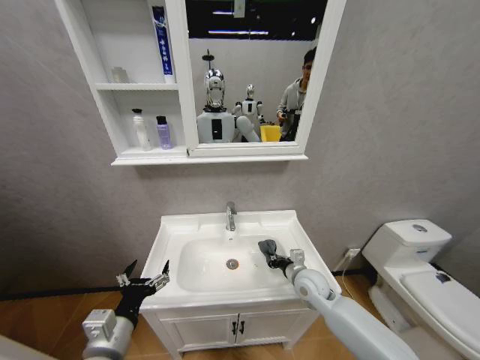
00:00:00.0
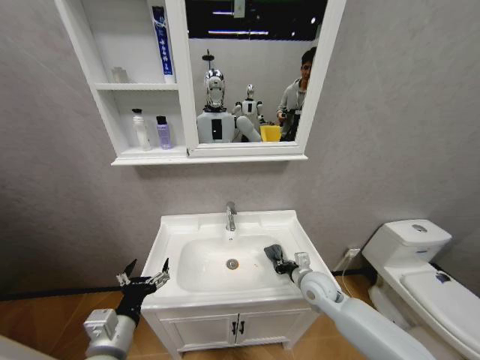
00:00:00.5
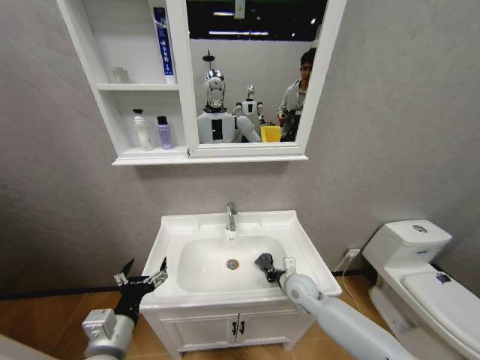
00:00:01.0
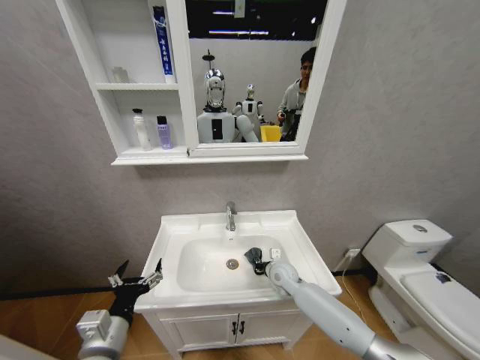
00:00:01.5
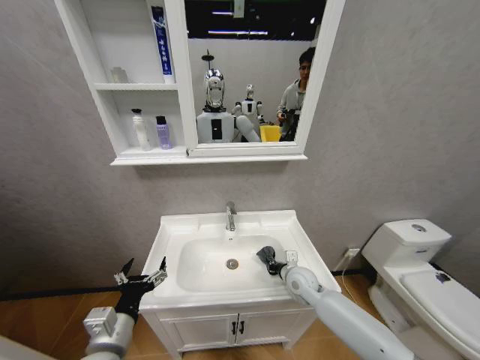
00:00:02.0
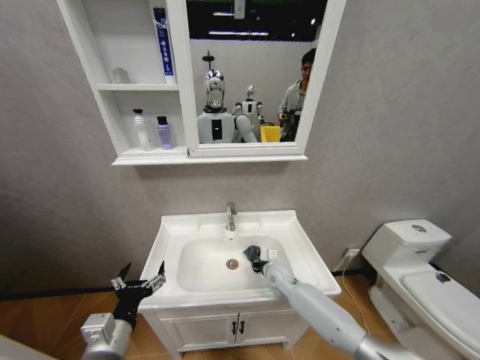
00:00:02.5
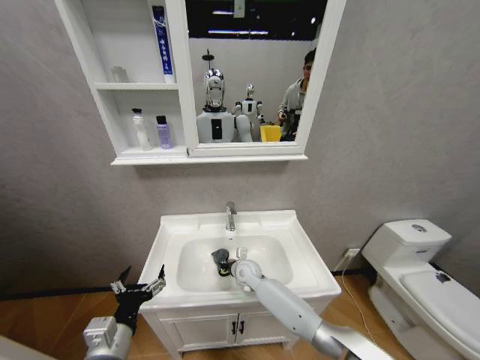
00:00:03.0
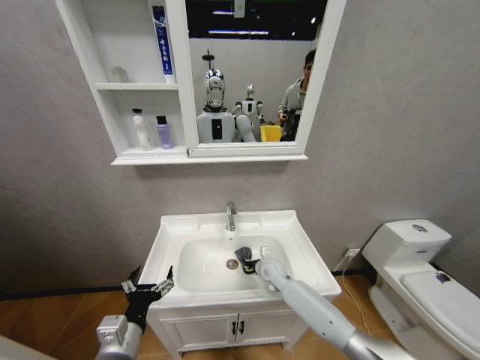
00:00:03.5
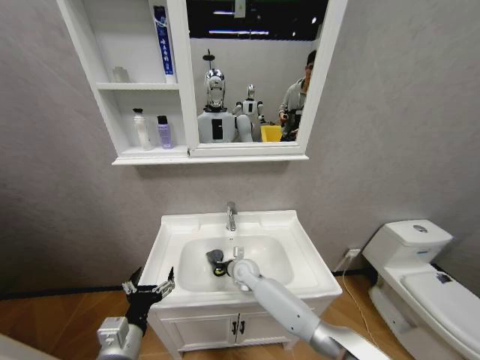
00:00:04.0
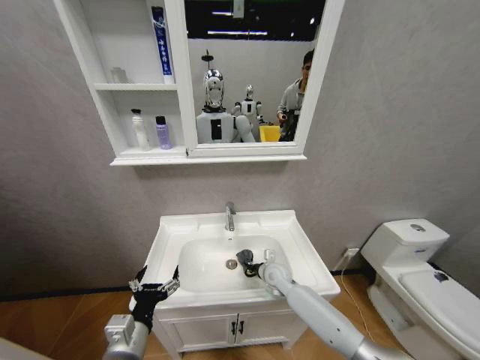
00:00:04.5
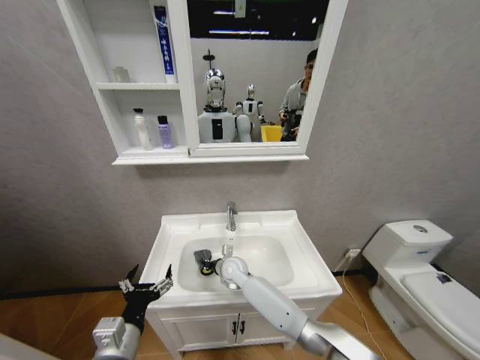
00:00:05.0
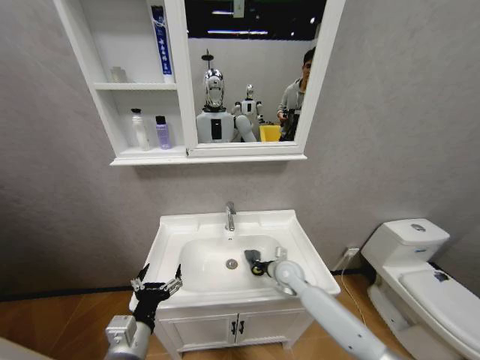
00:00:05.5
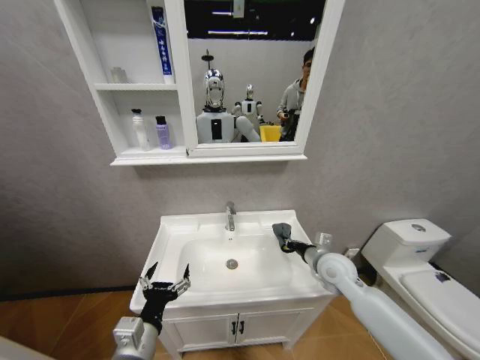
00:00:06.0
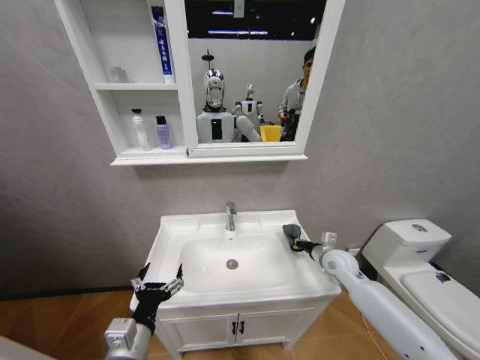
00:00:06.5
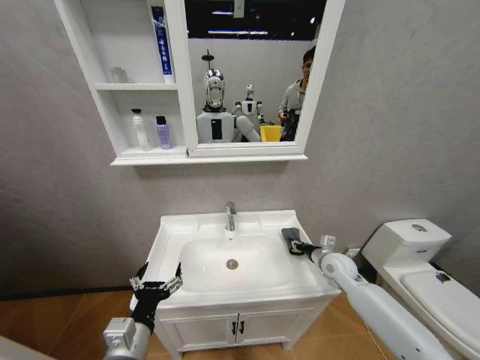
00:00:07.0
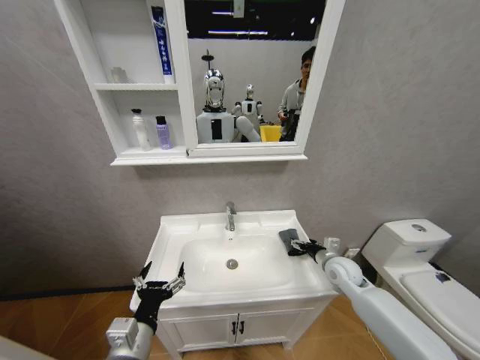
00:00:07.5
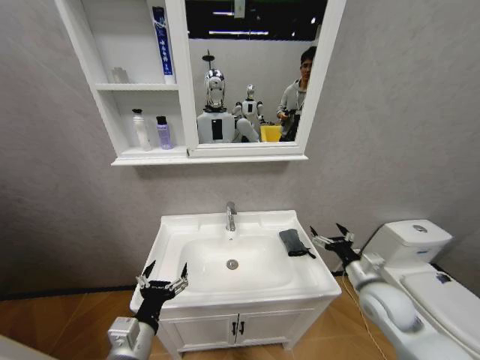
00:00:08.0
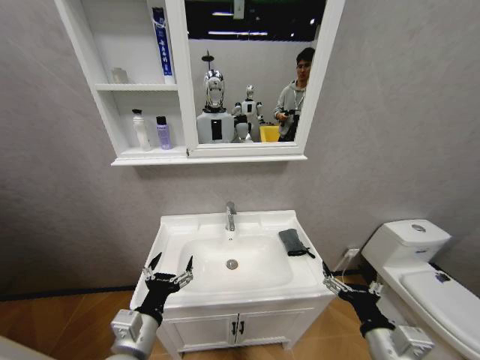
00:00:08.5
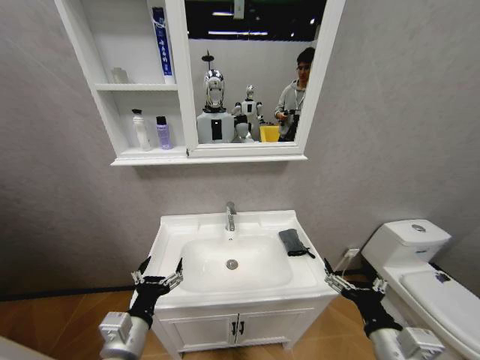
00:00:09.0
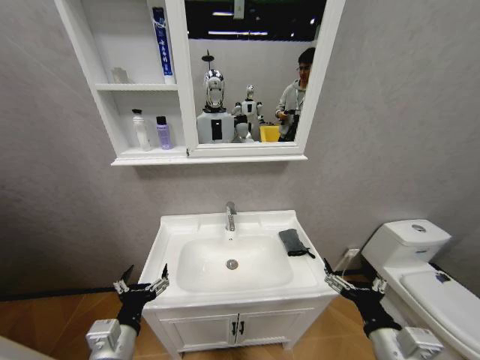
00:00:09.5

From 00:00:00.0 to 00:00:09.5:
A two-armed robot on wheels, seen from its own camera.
Task of the whole recording: Move facial cleanser and shampoo from washbasin to cabinet, then wipe washbasin with towel.
From 00:00:02.0 to 00:00:04.0: The right gripper moves left and right over some 20 cm, changing direction 2 times.
From 00:00:04.0 to 00:00:05.5: The right gripper goes left and right, about 20 cm each way, reversing 2 times.
From 00:00:05.5 to 00:00:07.5: The right gripper goes approximately 15 cm to the right, and opens up.
From 00:00:07.5 to 00:00:09.5: The right gripper is displaced backward by roughly 25 cm.

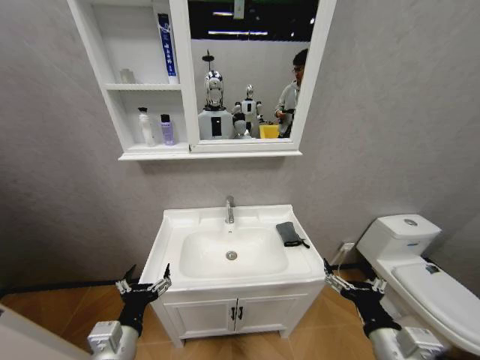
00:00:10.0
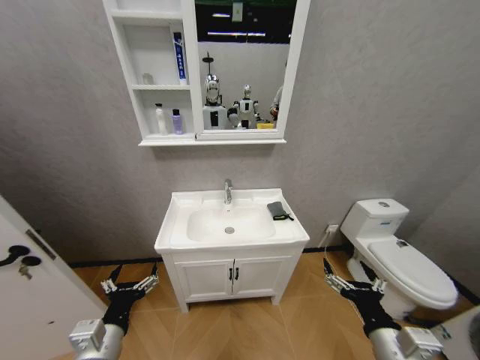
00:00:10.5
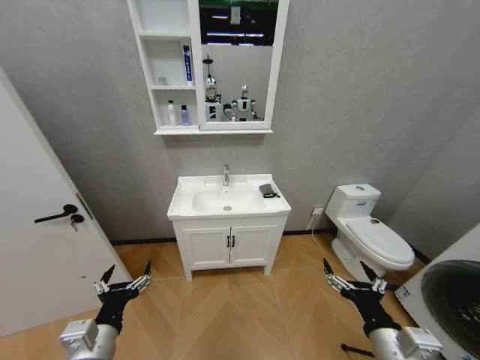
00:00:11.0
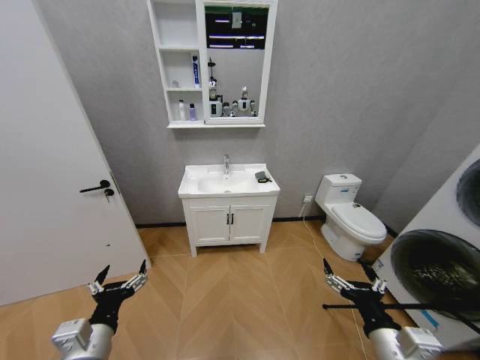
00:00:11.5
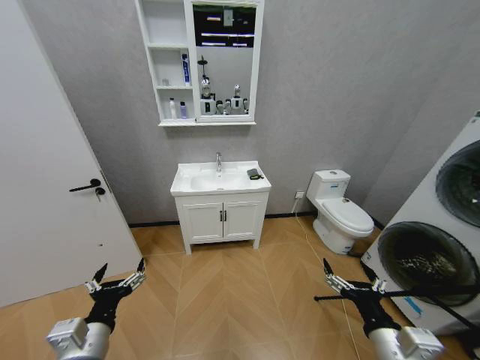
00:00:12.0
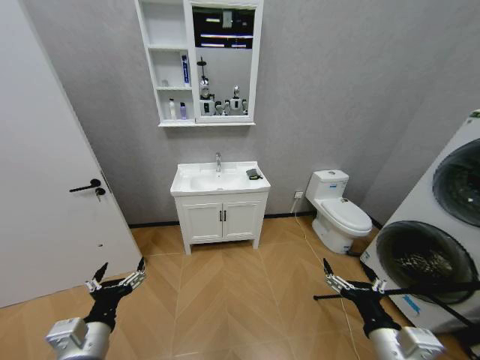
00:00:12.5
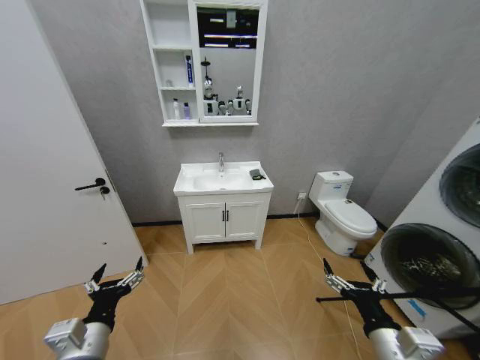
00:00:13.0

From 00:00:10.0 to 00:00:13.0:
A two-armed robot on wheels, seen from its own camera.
Task of the whole recording: Move facial cleanser and shampoo from washbasin to cabinet, then wipe washbasin with towel.
From 00:00:11.5 to 00:00:13.0: Both grippers stay put.

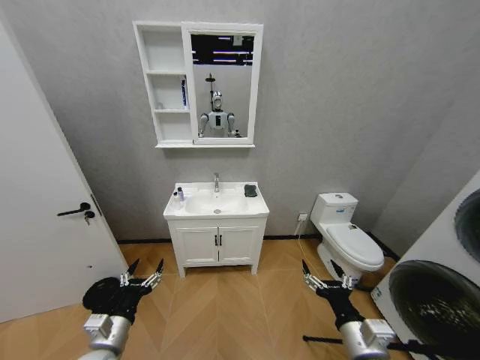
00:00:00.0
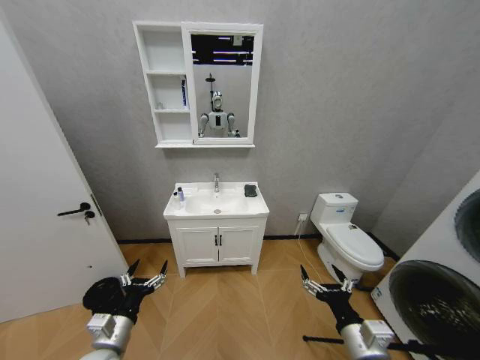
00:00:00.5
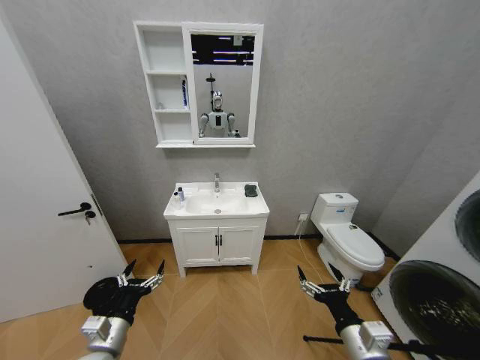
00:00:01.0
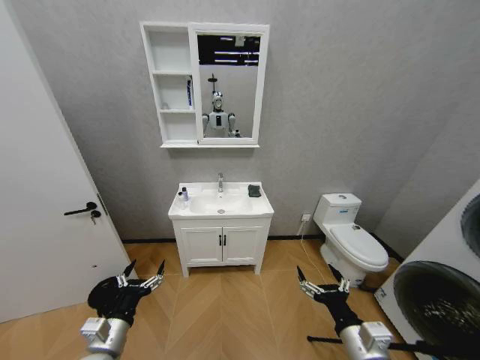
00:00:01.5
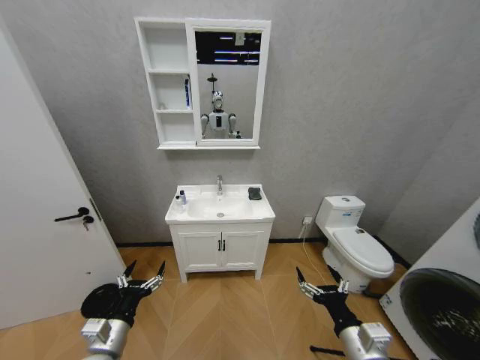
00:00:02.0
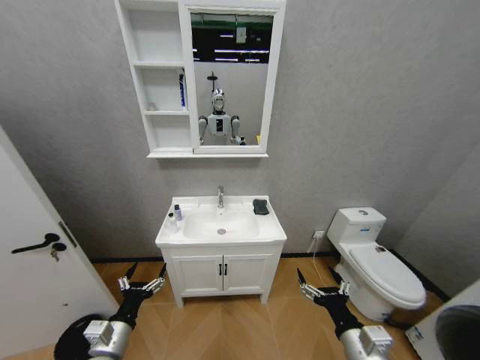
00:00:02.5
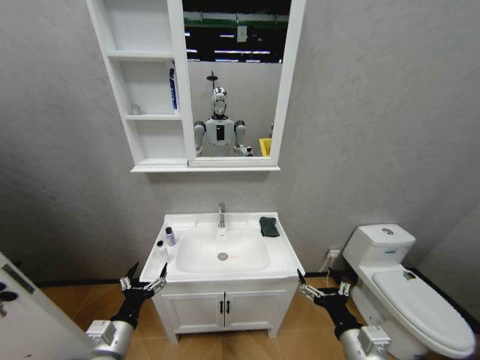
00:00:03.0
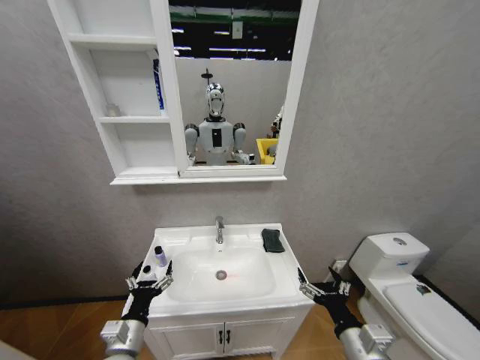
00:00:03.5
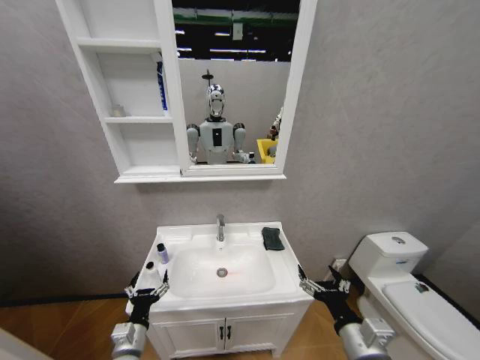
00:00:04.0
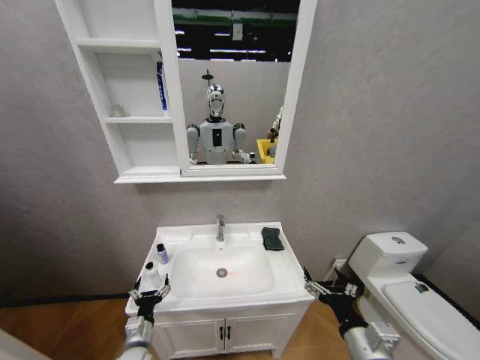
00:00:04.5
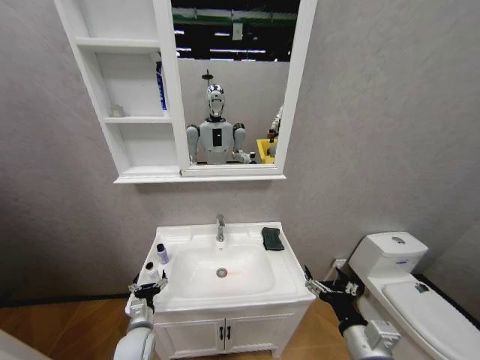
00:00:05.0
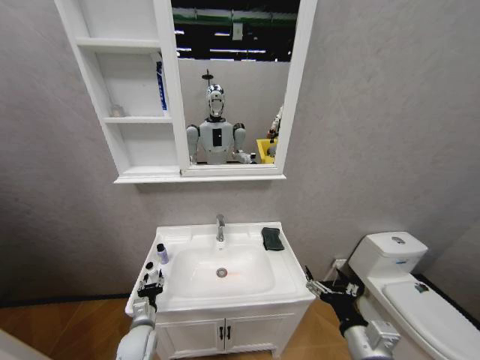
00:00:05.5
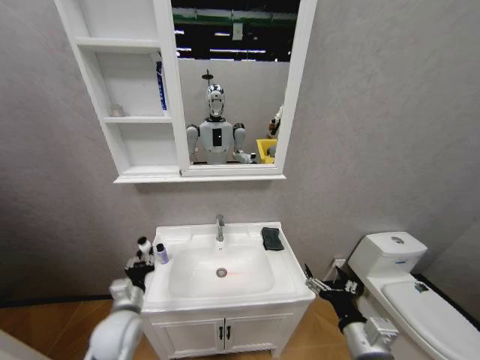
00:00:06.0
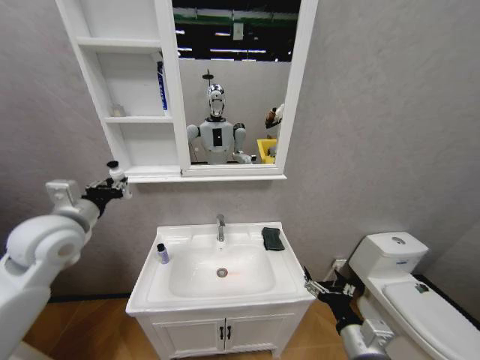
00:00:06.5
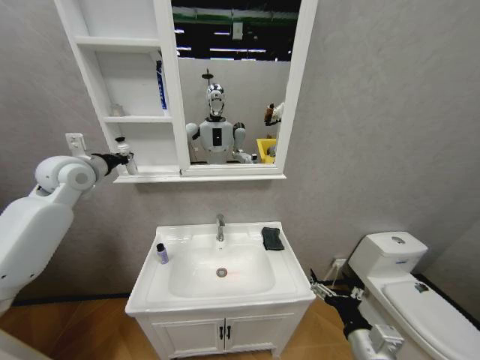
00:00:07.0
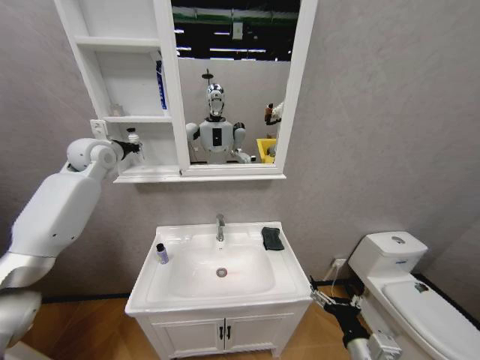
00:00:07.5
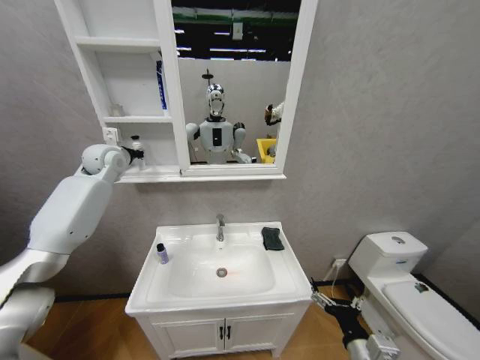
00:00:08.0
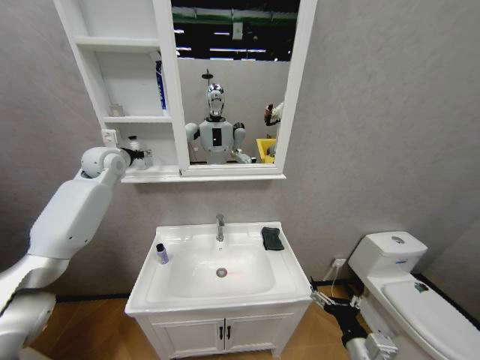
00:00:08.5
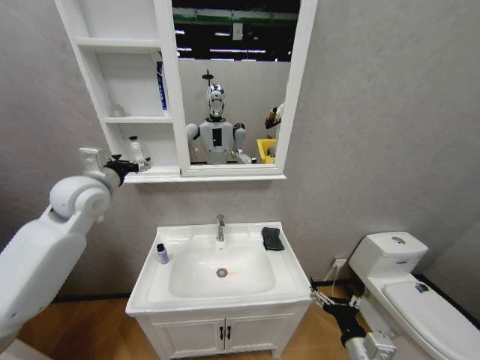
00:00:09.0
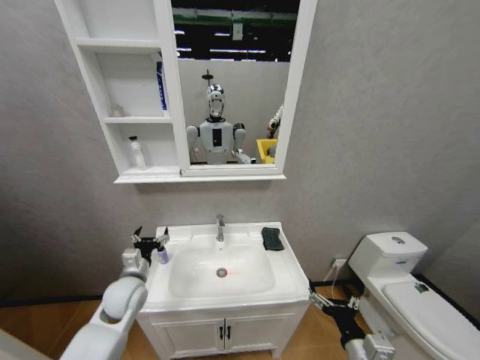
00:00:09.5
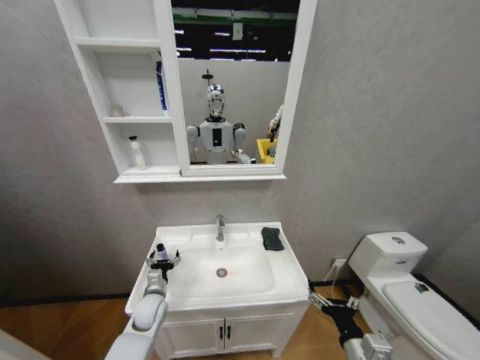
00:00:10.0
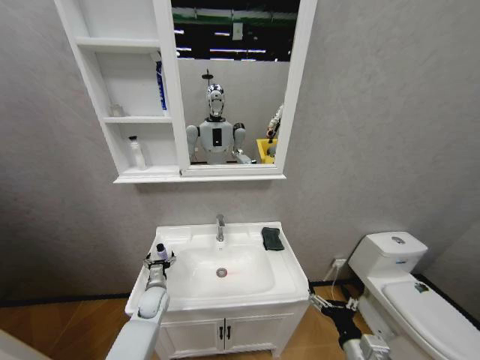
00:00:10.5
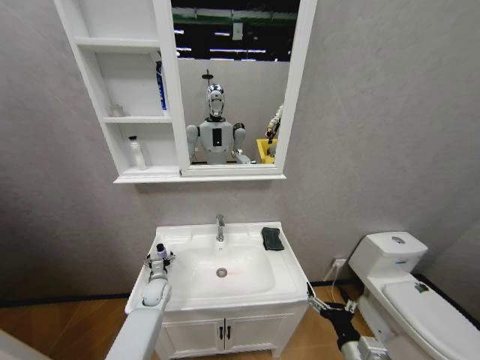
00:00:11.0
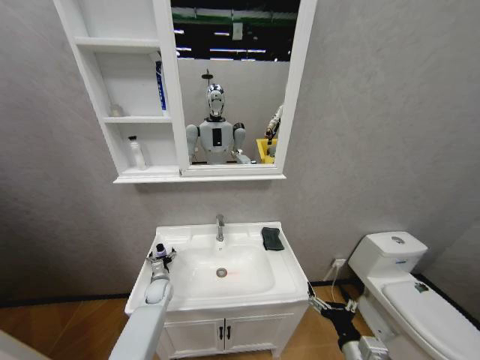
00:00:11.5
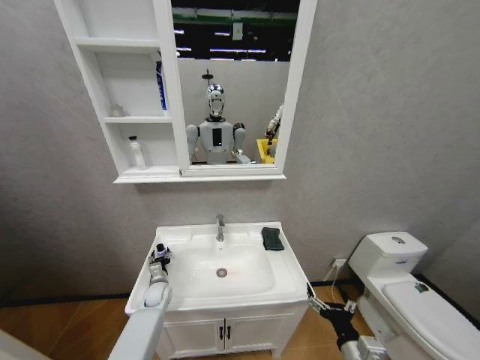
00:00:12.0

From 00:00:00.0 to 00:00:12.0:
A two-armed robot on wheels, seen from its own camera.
Task of the whole recording: Move facial cleanser and shampoo from washbasin to cabinet, then wipe washbasin with towel.
From 00:00:02.0 to 00:00:04.0: The left gripper is displaced downward by some 5 cm.
From 00:00:04.0 to 00:00:06.0: The left gripper is displaced upward and forward by some 10 cm, and closes up.
From 00:00:06.0 to 00:00:08.0: The left gripper is displaced upward and forward by approximately 40 cm.
From 00:00:08.0 to 00:00:10.0: The left gripper is displaced downward by some 40 cm, and opens up.
From 00:00:10.0 to 00:00:12.0: The left gripper moves forward and downward, approximately 10 cm, and closes up.

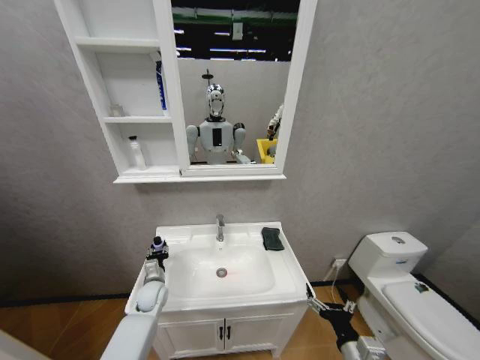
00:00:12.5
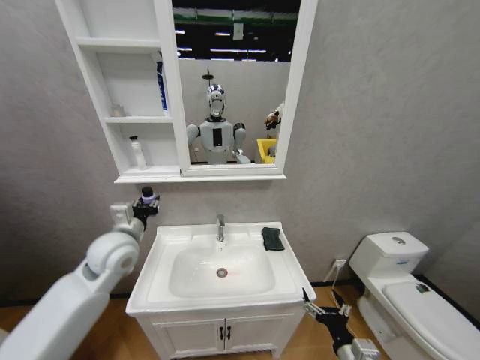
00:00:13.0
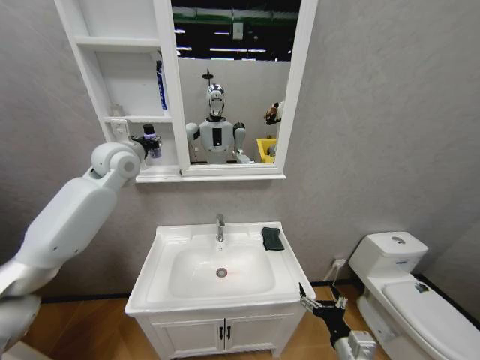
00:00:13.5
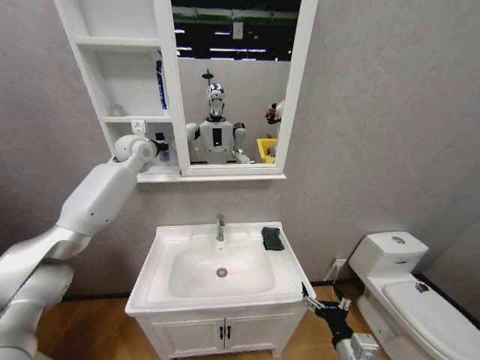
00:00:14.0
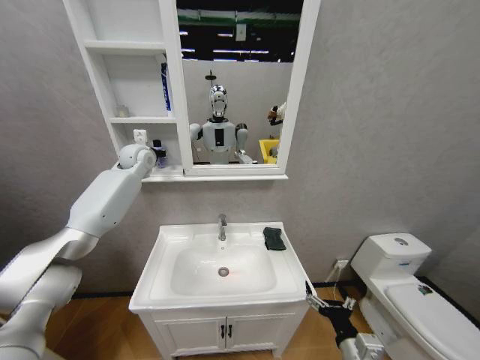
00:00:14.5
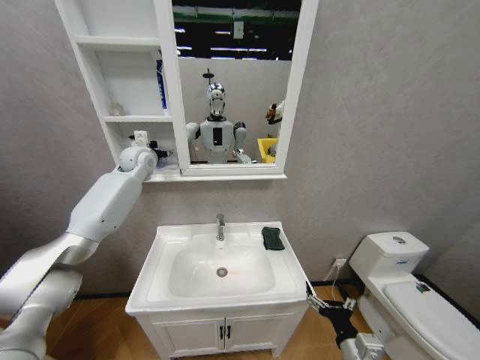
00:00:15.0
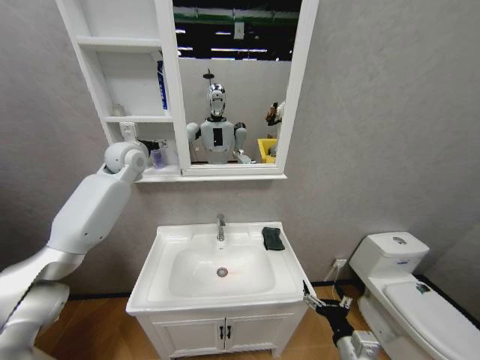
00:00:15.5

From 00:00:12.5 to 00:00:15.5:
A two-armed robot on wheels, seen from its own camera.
Task of the whole recording: Move facial cleanser and shampoo from washbasin to cabinet, then wipe washbasin with towel.
From 00:00:12.5 to 00:00:14.0: The left gripper shifts approximately 50 cm upward.
From 00:00:14.0 to 00:00:15.5: The left gripper opens up.
